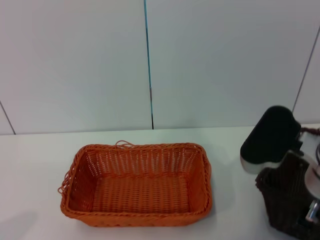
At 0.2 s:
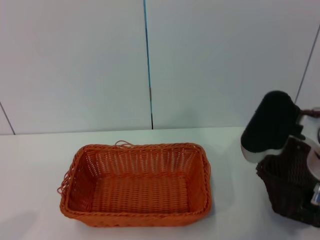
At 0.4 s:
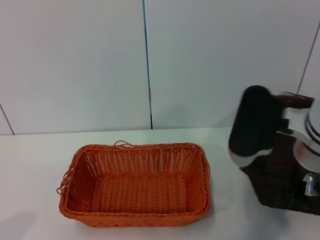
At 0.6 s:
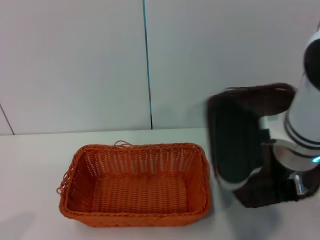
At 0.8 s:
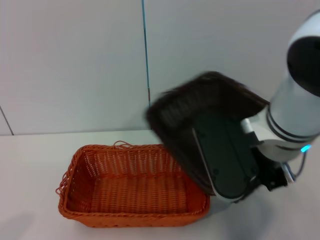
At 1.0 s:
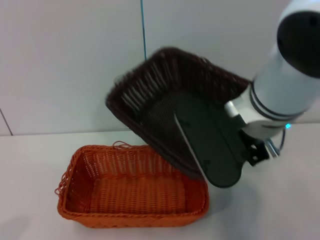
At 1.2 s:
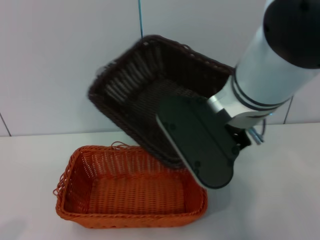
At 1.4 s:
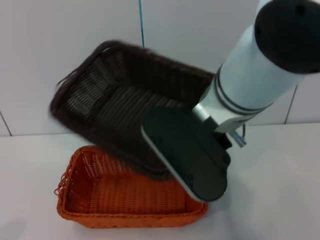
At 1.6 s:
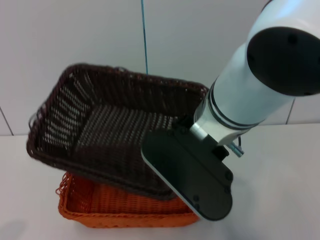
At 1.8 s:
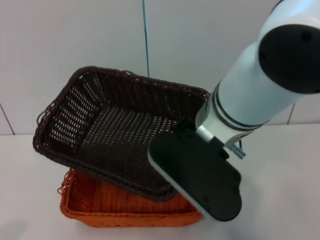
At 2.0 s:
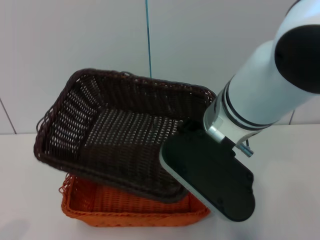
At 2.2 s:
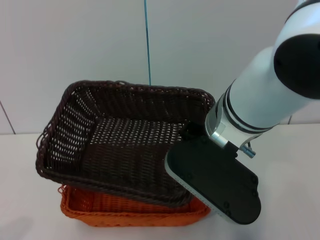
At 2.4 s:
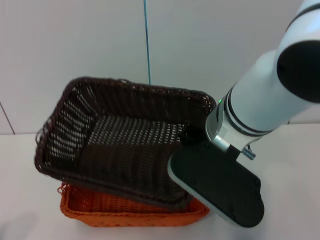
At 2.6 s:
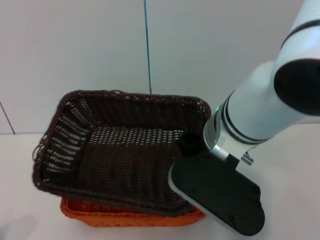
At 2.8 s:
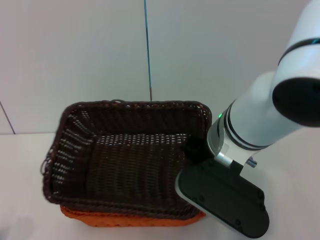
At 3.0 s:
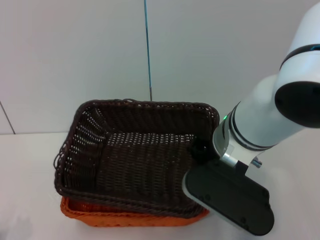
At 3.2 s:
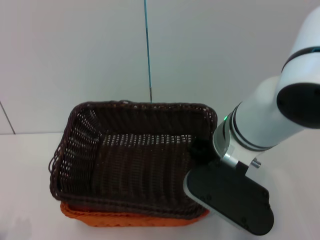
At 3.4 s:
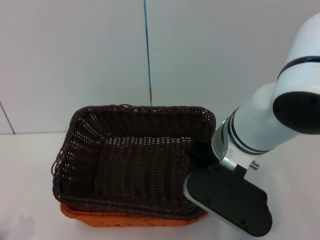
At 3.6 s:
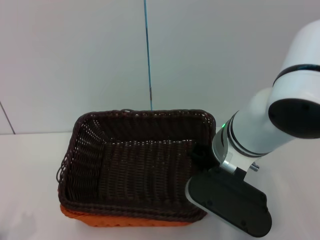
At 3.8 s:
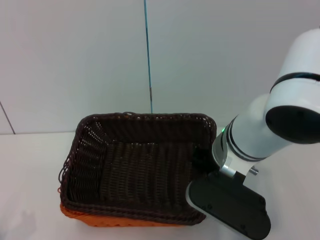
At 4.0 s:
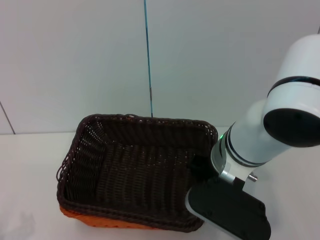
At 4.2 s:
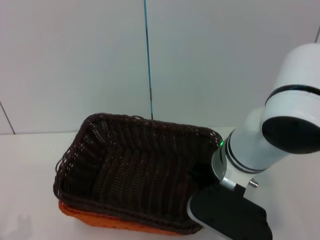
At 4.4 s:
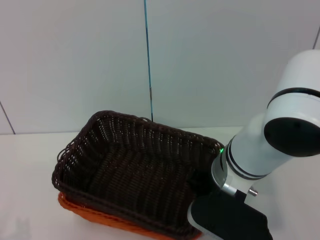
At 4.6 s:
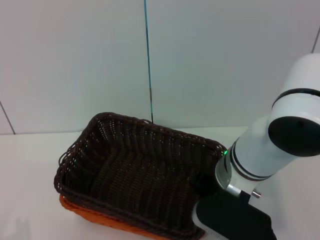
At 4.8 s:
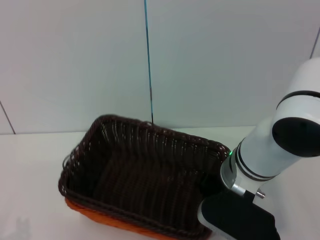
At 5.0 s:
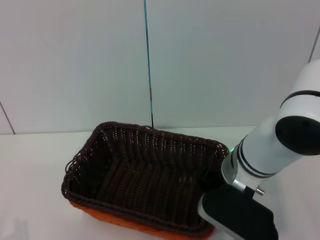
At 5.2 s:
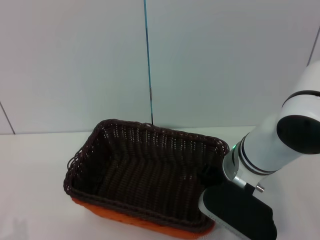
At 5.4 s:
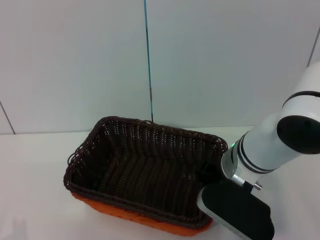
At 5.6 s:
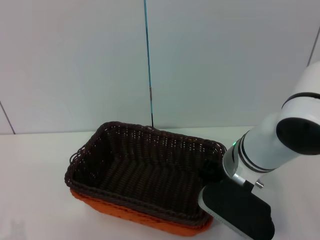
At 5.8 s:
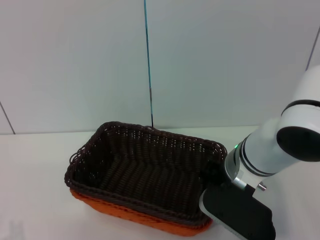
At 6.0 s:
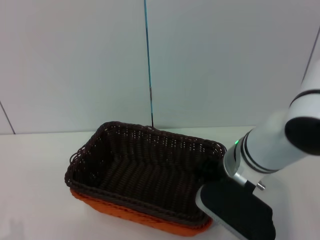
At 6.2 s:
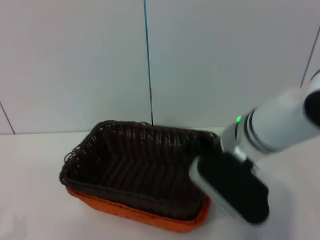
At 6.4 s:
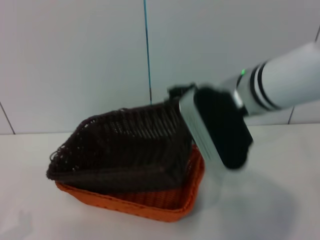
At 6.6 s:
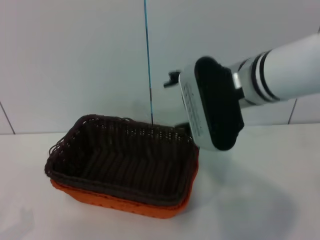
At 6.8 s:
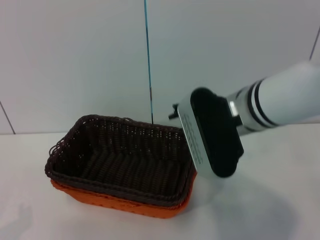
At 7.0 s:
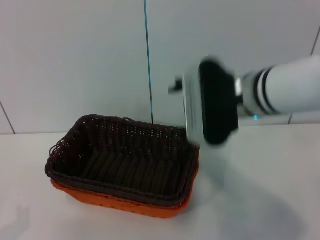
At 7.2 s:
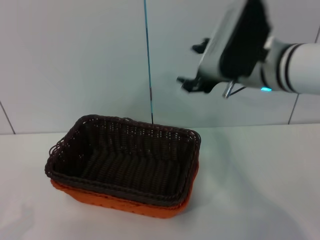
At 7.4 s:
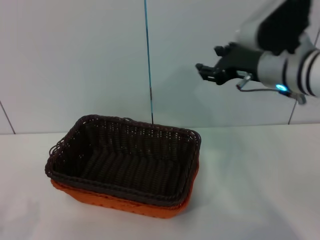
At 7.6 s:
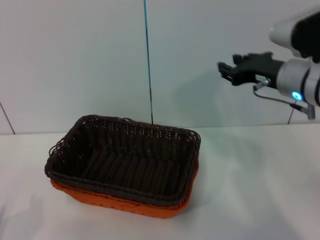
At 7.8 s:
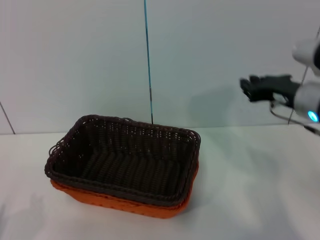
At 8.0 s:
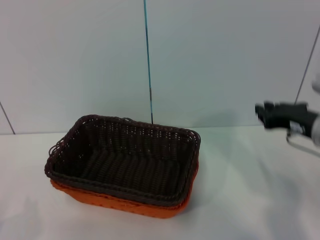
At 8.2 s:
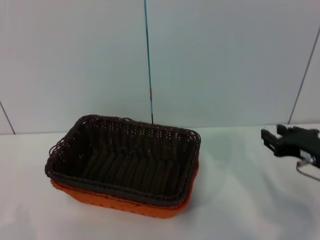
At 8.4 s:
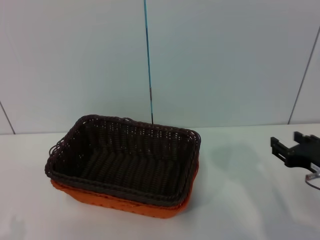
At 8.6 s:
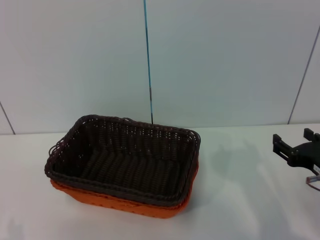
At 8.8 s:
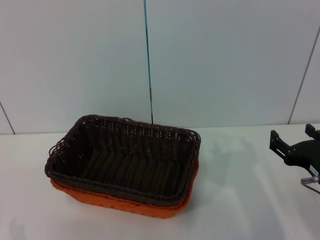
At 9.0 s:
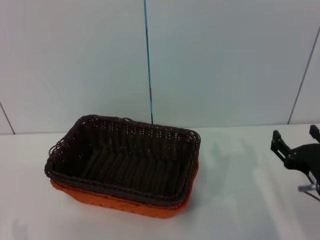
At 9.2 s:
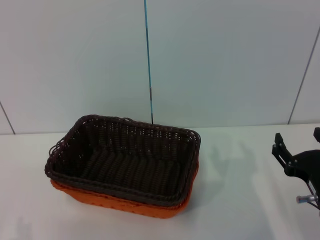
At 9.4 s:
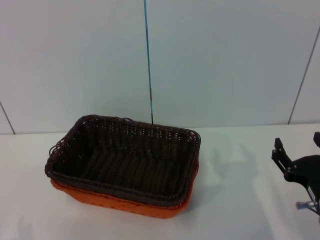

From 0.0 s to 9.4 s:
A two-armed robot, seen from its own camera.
Step, from 0.4 s to 6.4 s: Place the dark basket on the light basket with the right gripper.
From 0.0 s to 1.6 s: The right gripper is displaced to the left and upward by roughly 15 cm.
From 1.6 s to 3.2 s: The right gripper ends up approximately 5 cm from where it was.
From 3.2 s to 4.8 s: The right gripper heads downward, covering roughly 5 cm.
From 4.8 s to 6.2 s: The right gripper opens up.
From 6.2 s to 7.8 s: The right gripper heads to the right and forward, covering some 15 cm, and opens, then closes once more.
From 7.8 s to 9.4 s: The right gripper is displaced backward and downward by some 20 cm, and opens.
